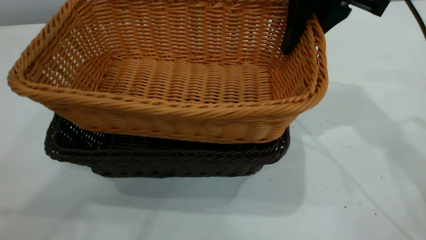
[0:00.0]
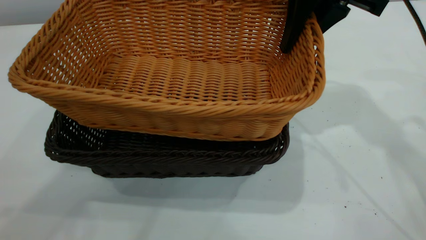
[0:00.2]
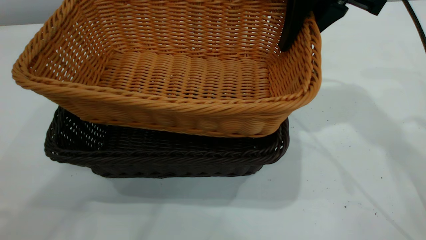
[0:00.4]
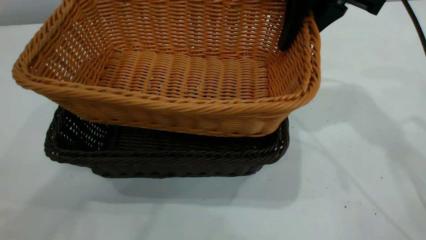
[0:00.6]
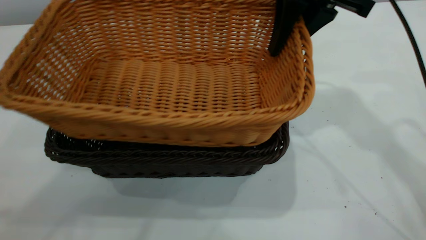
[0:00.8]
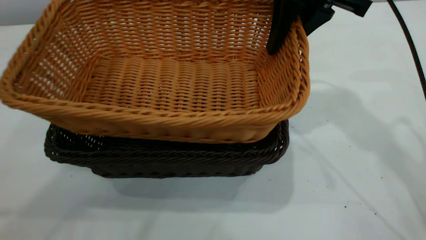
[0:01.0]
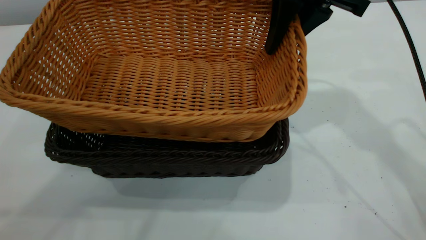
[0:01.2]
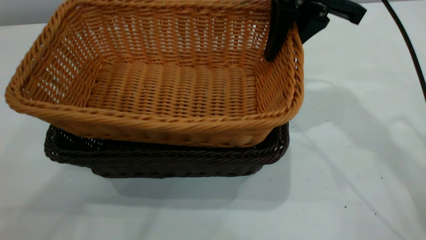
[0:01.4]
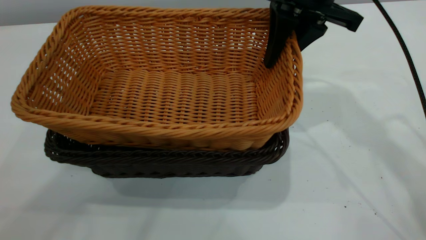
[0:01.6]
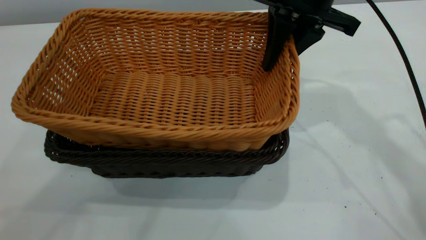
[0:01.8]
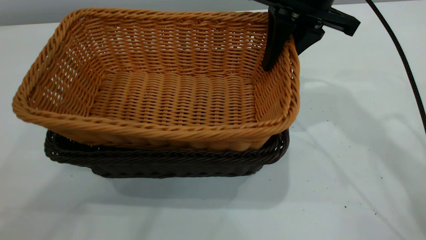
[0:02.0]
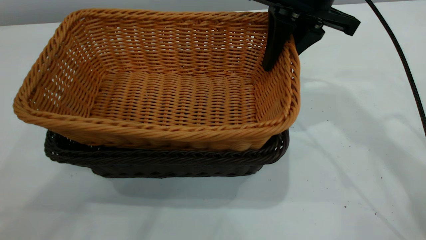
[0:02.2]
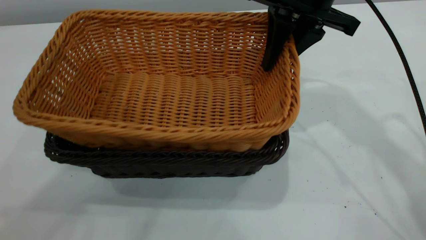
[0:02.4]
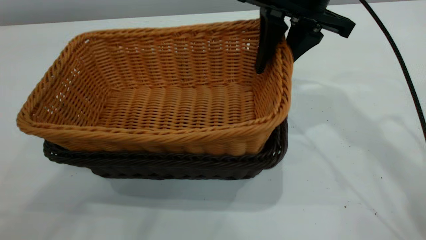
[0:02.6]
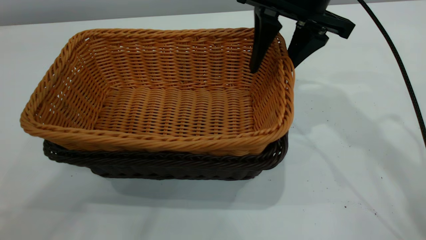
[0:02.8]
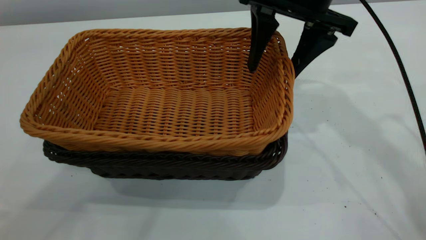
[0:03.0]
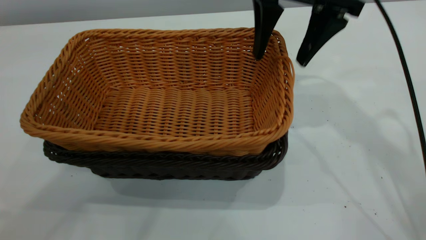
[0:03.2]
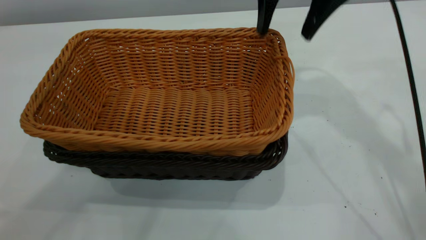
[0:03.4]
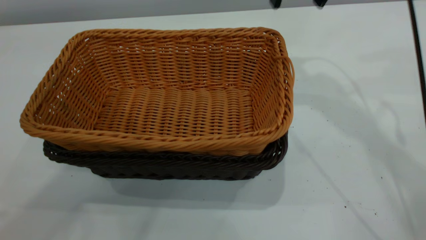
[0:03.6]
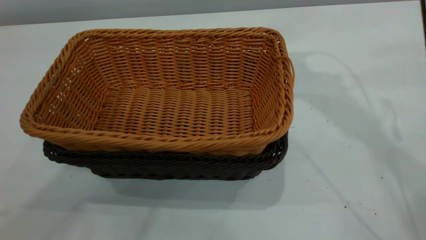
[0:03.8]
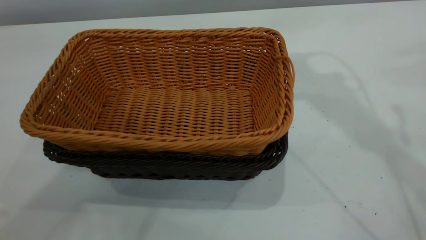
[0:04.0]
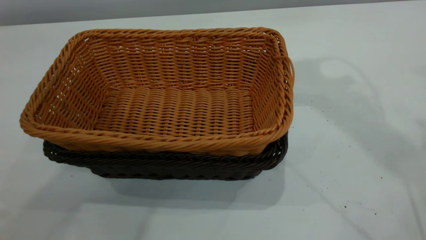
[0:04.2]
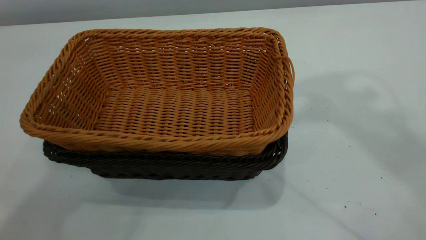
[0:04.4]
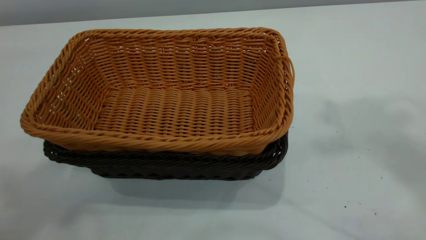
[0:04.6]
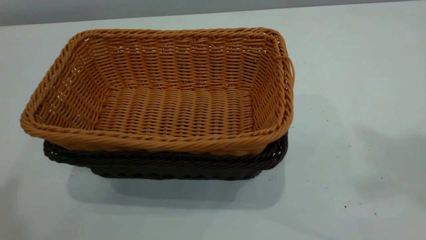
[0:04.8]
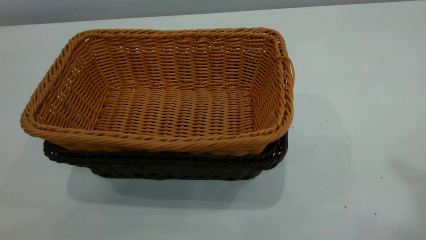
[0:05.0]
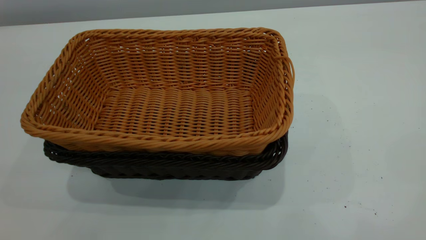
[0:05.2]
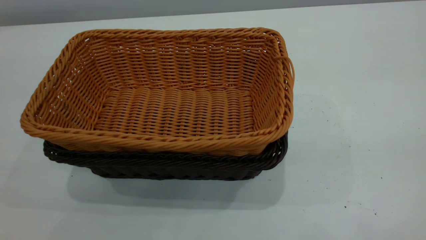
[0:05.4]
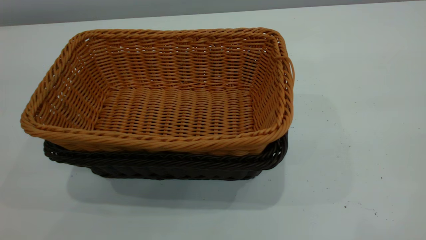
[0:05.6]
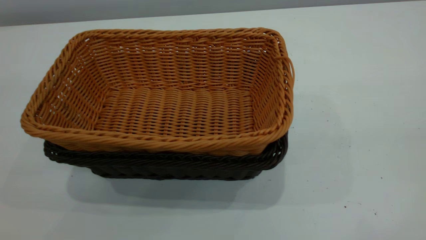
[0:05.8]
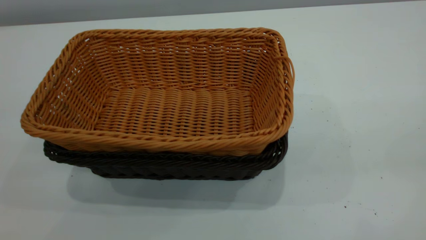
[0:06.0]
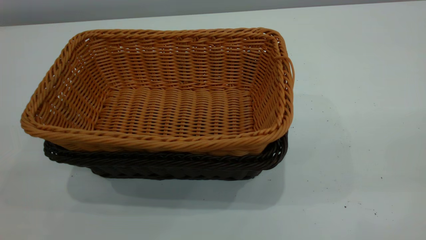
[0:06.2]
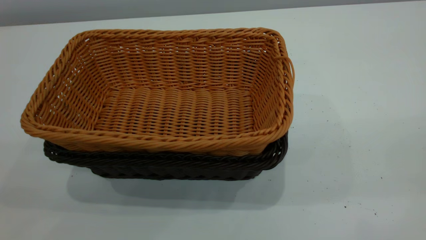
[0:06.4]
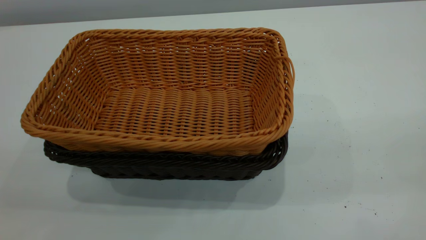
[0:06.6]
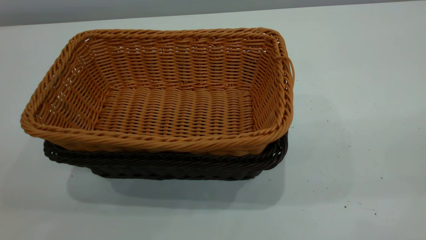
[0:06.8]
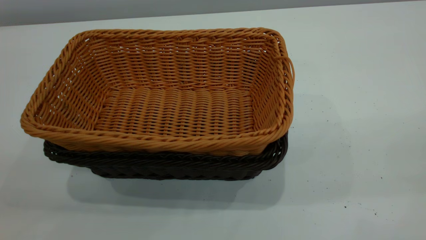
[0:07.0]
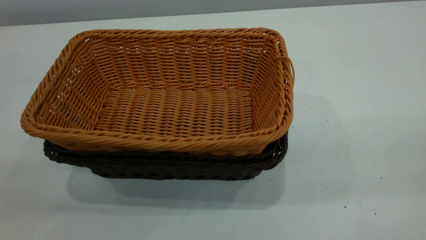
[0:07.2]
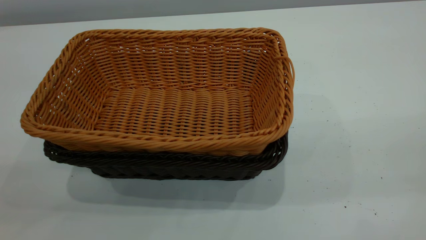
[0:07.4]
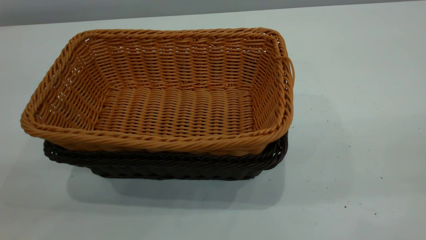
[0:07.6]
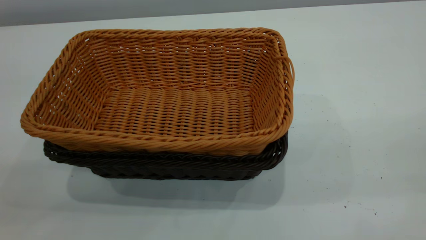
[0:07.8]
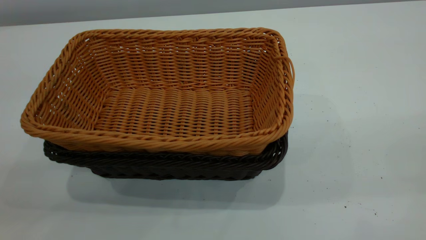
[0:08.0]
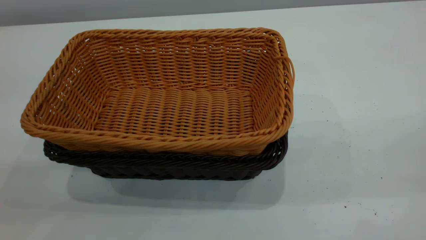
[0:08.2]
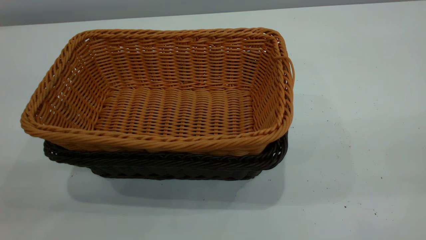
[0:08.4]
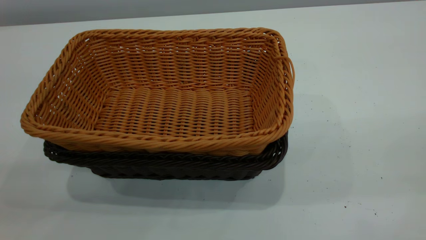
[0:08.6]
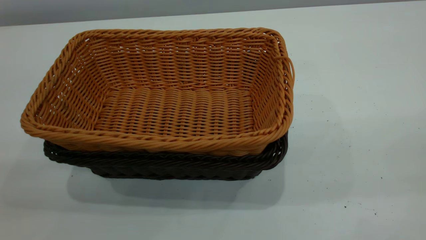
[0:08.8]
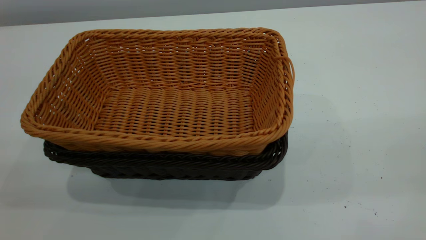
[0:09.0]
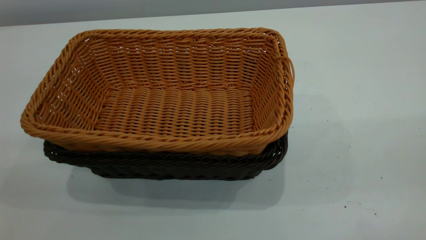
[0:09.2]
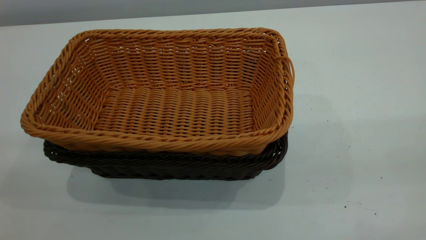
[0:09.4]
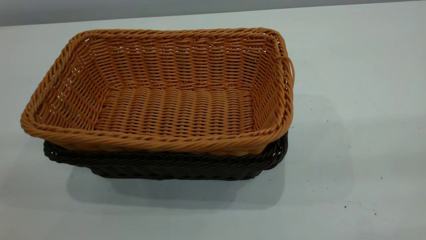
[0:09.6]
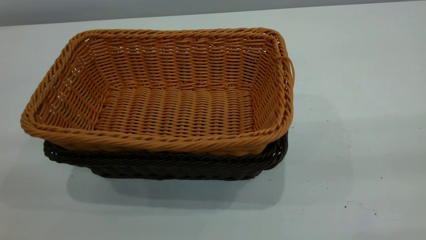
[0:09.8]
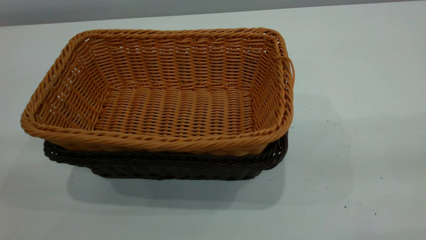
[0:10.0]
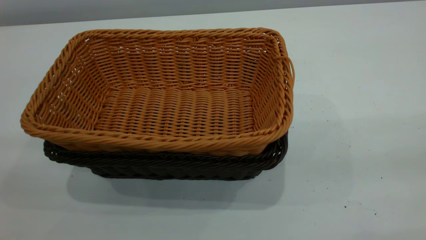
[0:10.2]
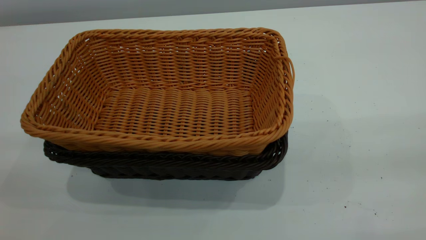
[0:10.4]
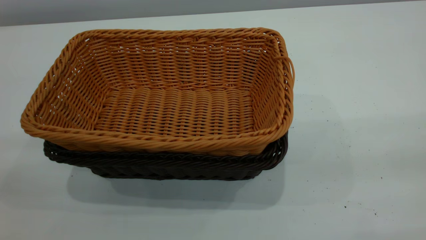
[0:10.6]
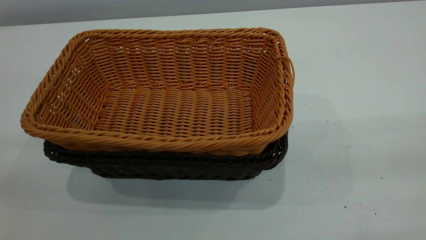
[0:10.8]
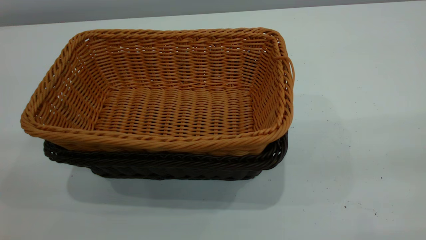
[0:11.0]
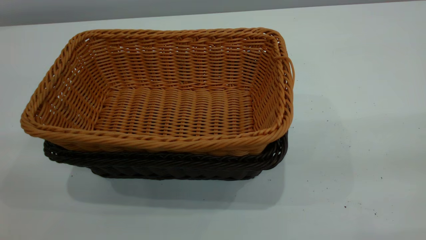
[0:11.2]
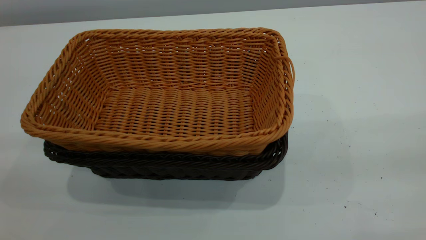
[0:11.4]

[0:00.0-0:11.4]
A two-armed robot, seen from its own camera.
Task of the whole recording: the left gripper grasp the black basket and place it in the center of the table, the right gripper grasp the brown basket and place it inside the black one.
Step, 0:00.0 to 0:03.4: Place the light basket on the dark basket.
0:00.0 to 0:01.4: The grippers make only small movements.
0:01.4 to 0:02.8: The right gripper opens up.
0:02.8 to 0:04.2: The right gripper is displaced upward by some 20 cm, and closes up.
0:10.0 to 0:11.4: The two grippers keep their place.

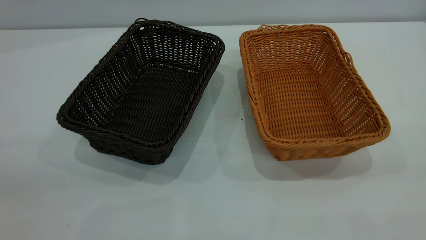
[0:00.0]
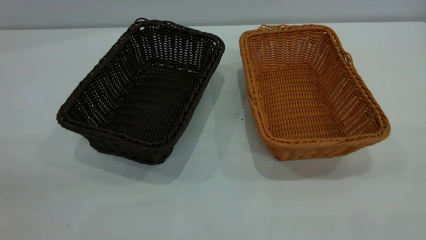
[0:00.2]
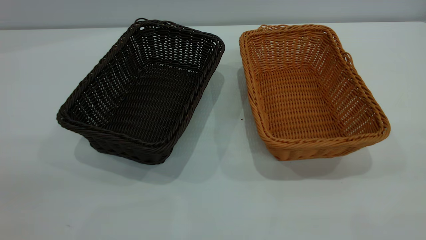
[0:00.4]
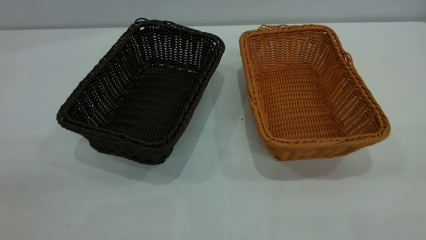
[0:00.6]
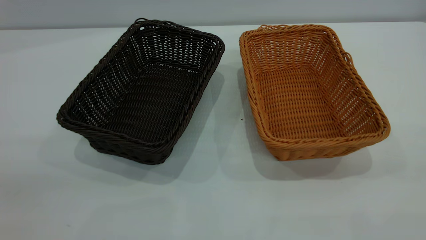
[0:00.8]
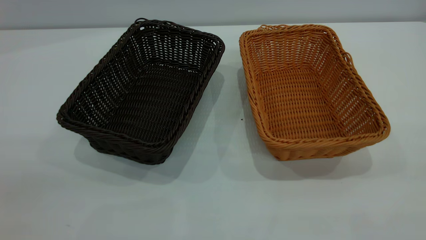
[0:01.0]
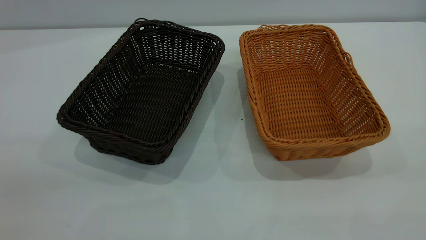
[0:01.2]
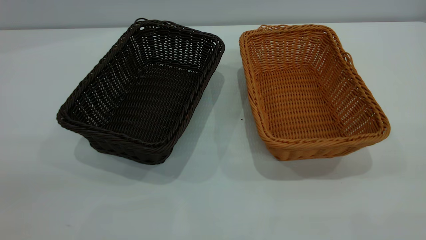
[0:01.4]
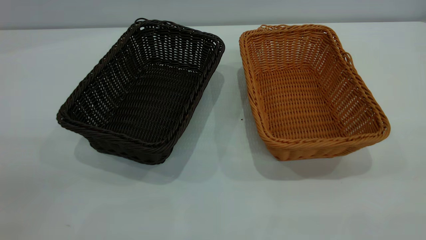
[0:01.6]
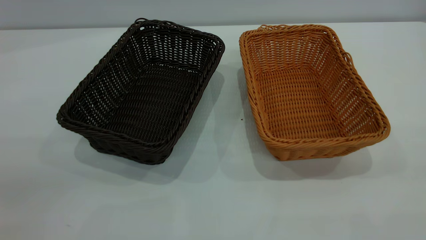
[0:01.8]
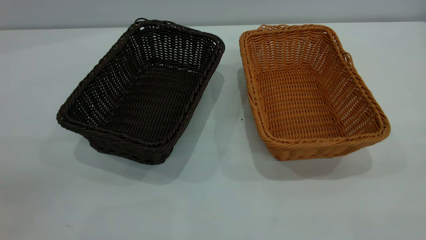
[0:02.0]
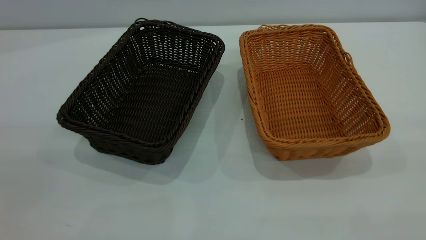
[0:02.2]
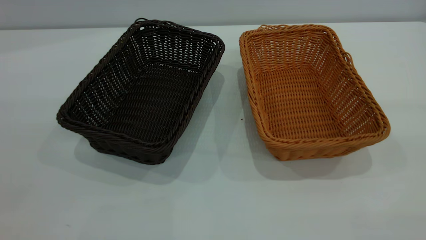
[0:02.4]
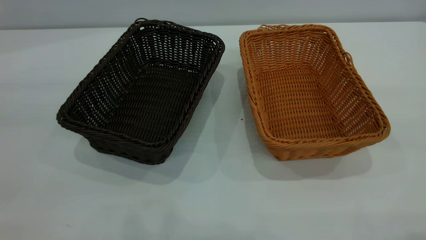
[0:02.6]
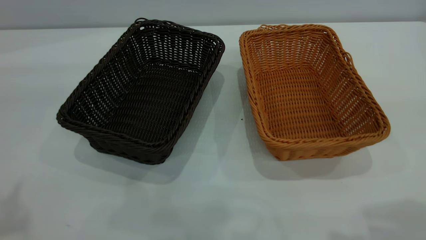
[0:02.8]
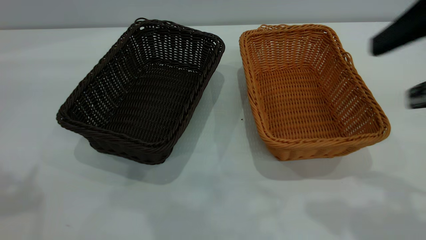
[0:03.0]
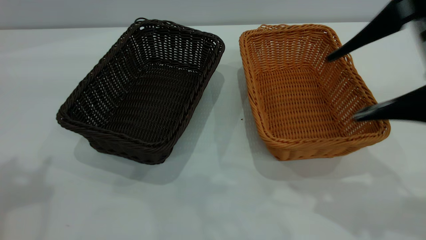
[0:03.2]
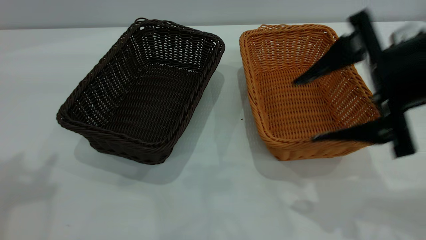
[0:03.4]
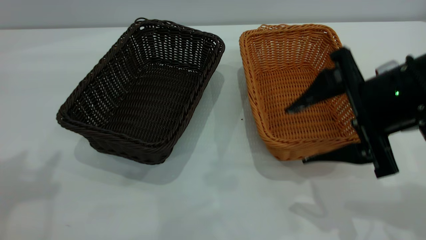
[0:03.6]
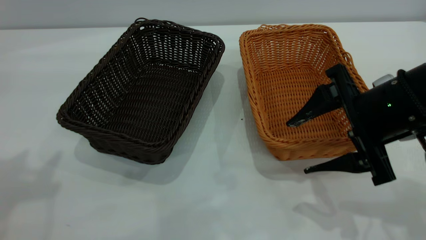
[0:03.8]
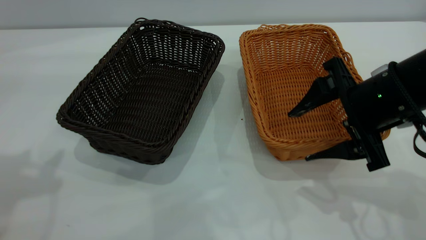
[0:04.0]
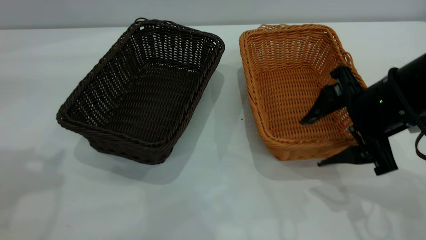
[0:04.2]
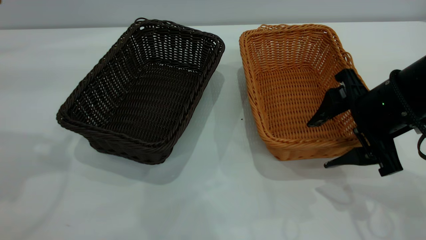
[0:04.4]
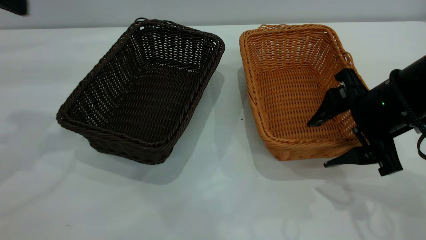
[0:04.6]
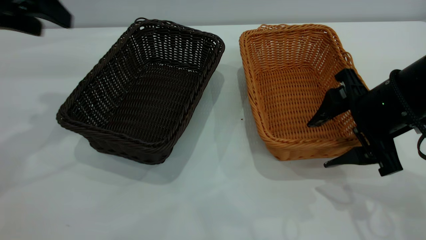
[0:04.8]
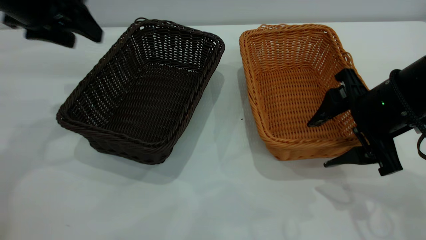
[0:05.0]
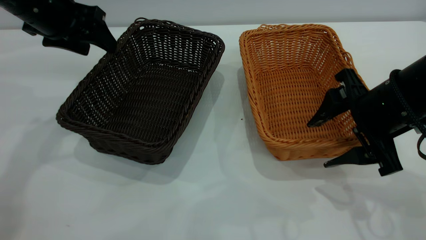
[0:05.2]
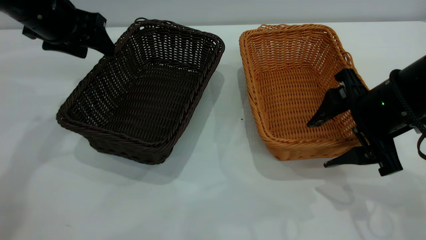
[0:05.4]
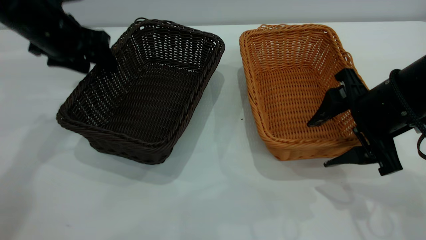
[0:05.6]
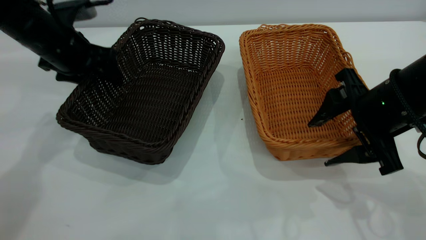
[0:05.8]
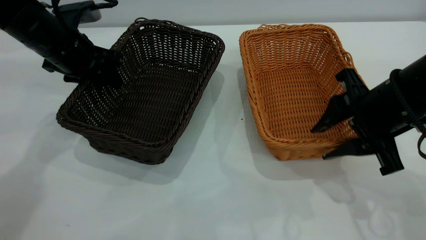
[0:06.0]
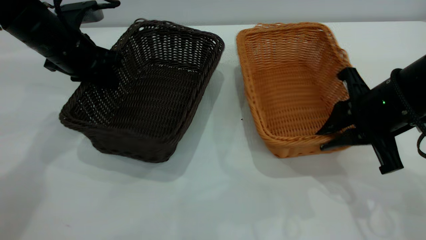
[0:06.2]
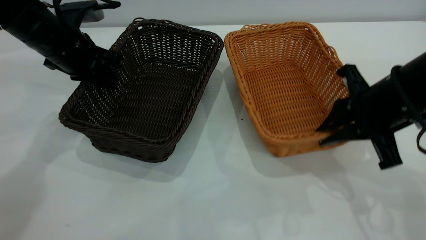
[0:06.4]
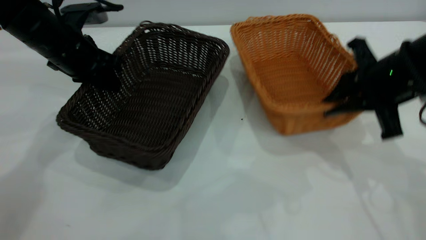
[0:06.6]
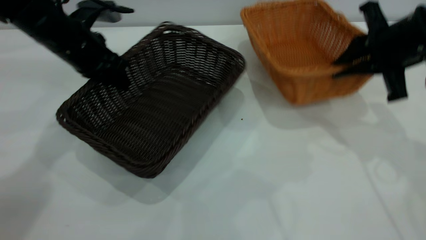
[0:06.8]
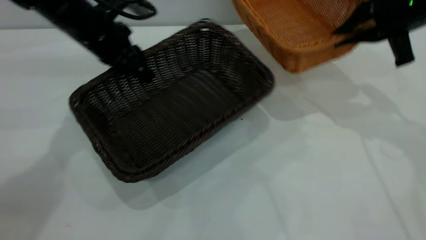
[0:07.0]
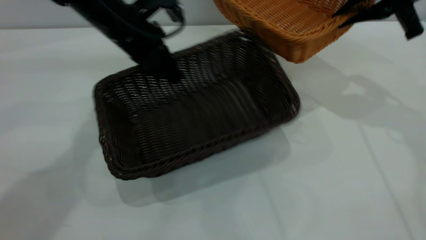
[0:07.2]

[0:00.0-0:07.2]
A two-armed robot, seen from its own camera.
Task of the whole recording: the left gripper grasp the black basket and place it in the center of the table, the right gripper grasp the brown basket and place it inside the black one.
Step, 0:00.0 to 0:06.8: Pick up the light basket with the right gripper.
0:00.0 to 0:01.4: Both grippers stay about where they are.
0:02.8 to 0:04.4: The right gripper shifts some 25 cm downward and forward.
0:04.4 to 0:05.8: The left gripper travels downward and forward by some 20 cm.
0:05.8 to 0:07.2: The left gripper moves to the right, some 10 cm, and closes its fingers. The right gripper is displaced forward and upward by about 15 cm, and closes.
